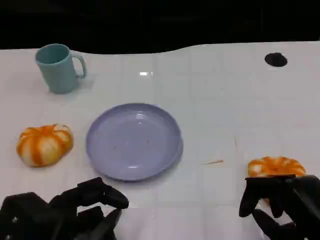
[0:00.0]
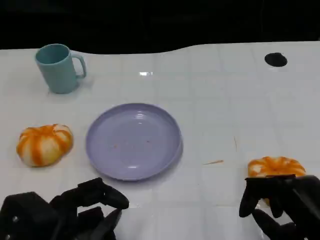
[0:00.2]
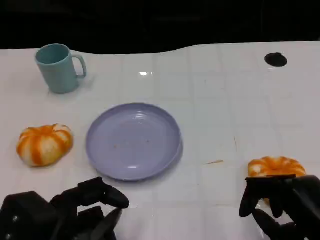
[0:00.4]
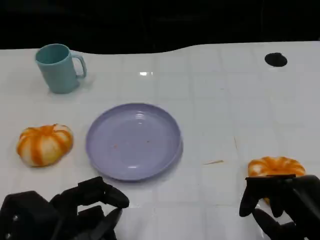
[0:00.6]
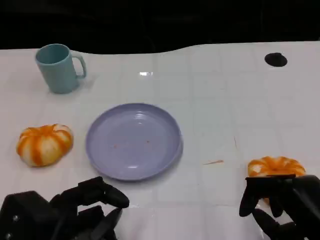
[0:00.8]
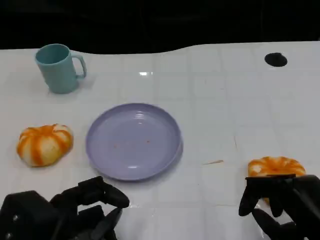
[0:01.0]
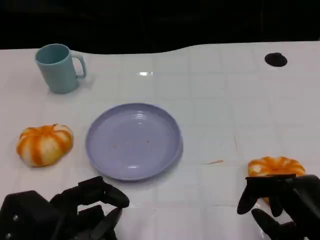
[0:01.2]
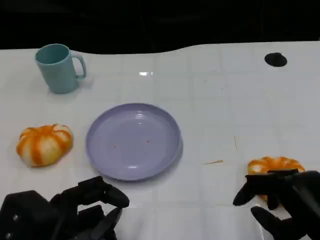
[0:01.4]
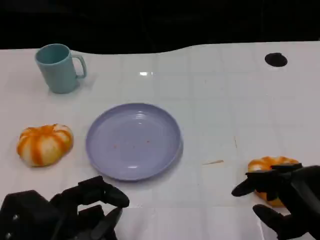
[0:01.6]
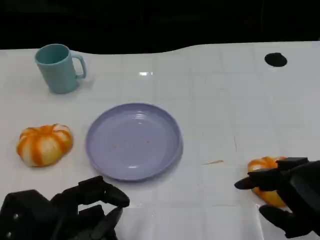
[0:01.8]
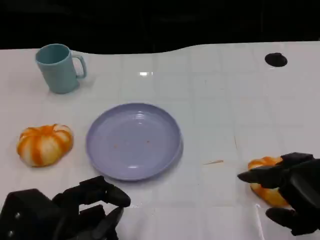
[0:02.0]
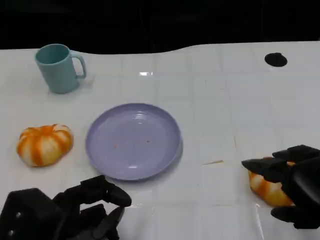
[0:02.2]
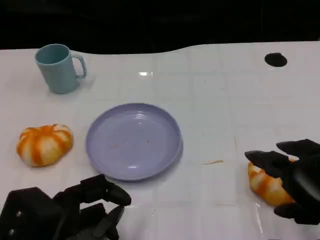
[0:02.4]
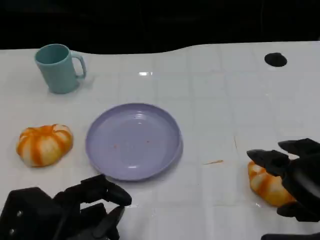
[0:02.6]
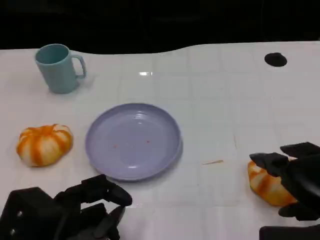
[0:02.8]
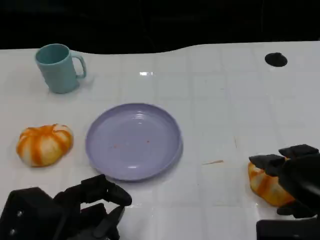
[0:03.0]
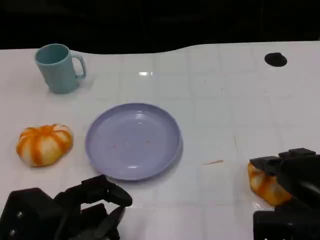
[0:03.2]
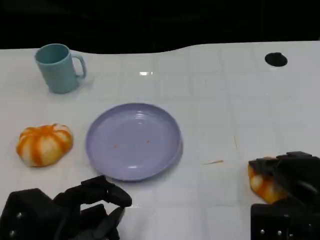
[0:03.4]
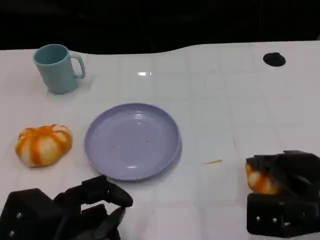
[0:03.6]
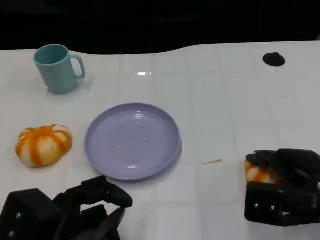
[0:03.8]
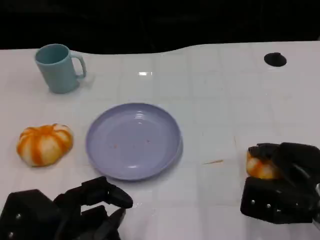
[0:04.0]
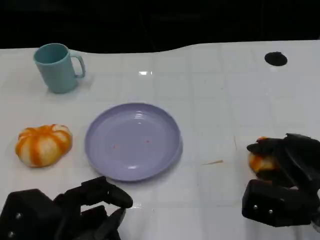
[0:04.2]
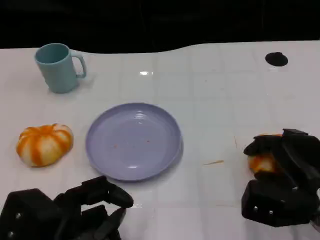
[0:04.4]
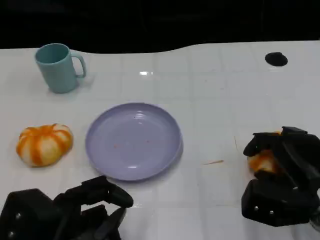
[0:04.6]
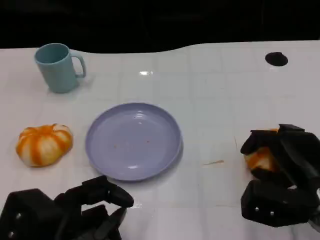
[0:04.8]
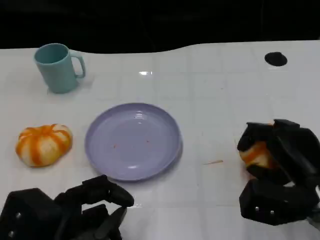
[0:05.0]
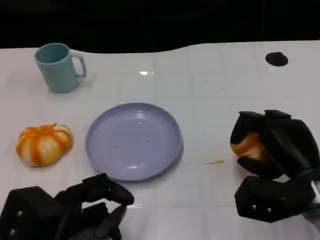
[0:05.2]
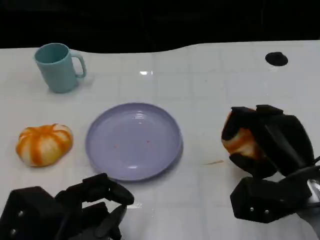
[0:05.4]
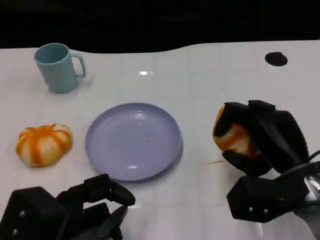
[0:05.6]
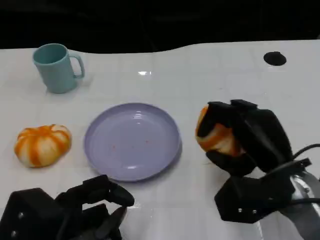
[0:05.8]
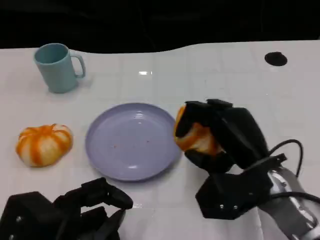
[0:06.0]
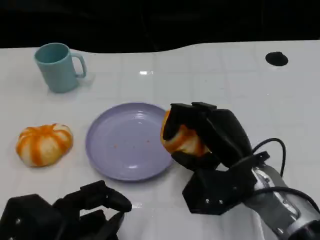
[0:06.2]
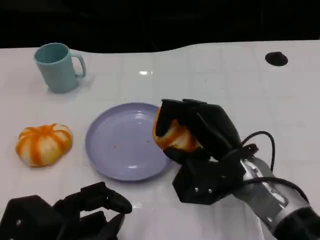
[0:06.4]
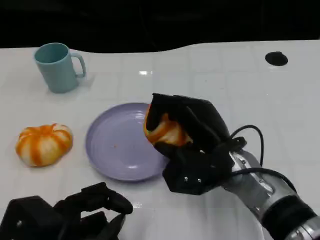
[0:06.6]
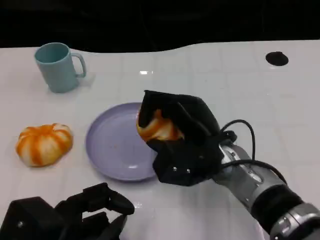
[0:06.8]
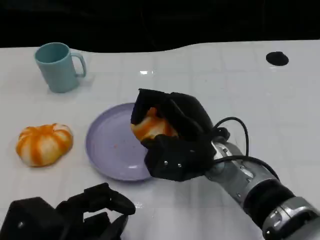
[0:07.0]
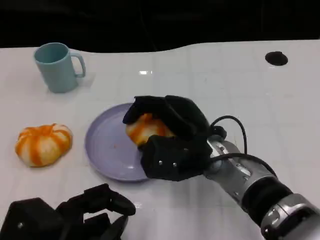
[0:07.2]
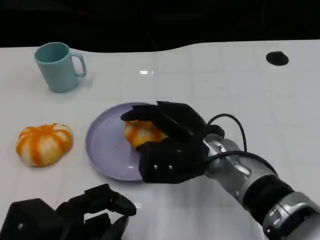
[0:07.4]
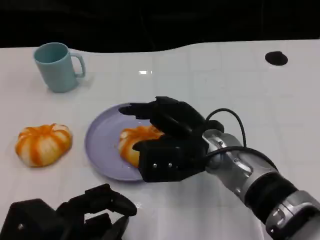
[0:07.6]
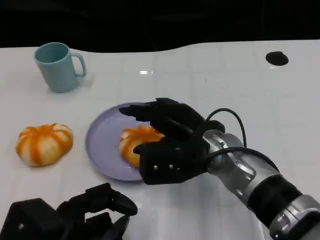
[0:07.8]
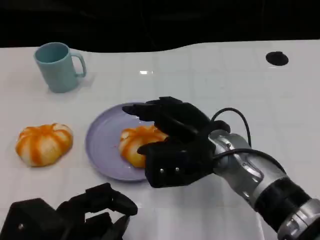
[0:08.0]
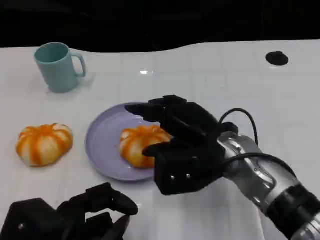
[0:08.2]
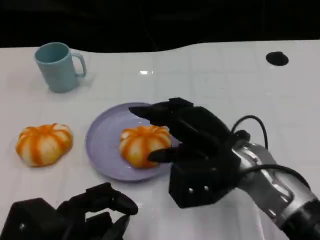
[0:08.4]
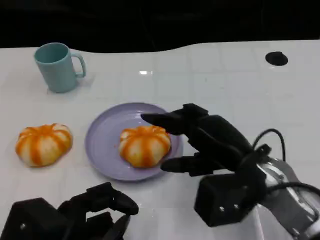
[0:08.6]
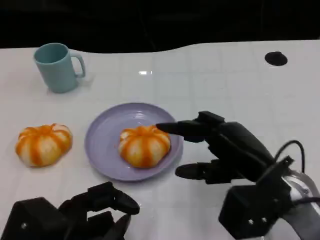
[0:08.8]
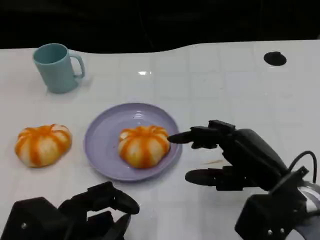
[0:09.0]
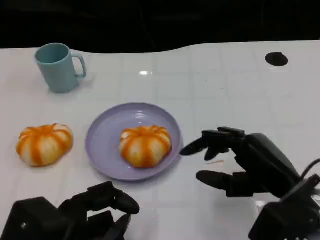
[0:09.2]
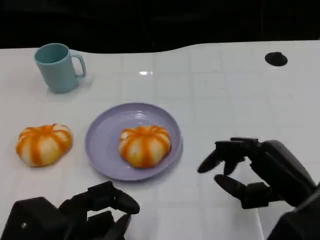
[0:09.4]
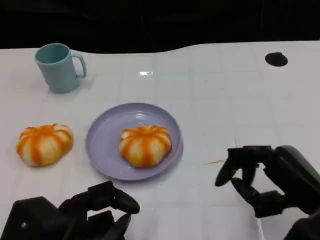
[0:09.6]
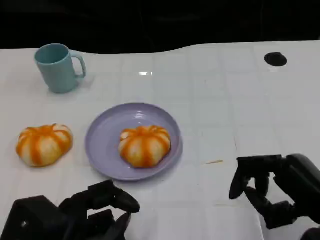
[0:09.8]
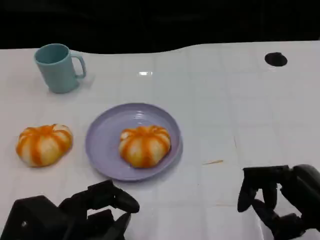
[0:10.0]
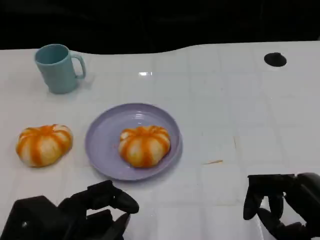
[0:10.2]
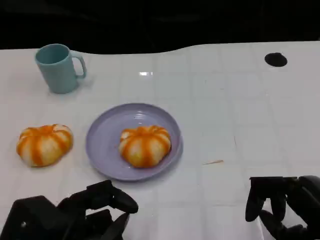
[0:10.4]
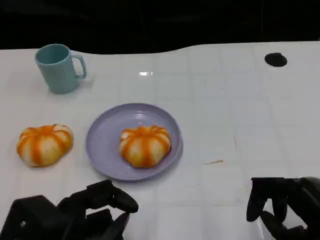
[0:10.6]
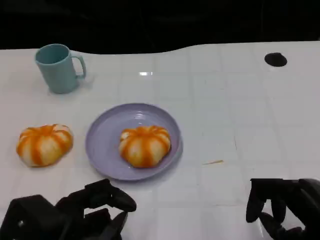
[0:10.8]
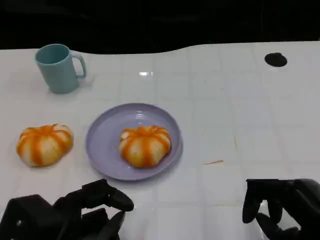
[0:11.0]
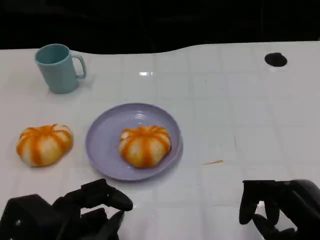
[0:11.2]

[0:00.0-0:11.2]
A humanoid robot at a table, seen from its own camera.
Task of the whole recording: Grasp the bread from the table and place it into the plate.
0.0 to 1.6 s: The hands move only a little.
3.2 to 4.8 s: The right hand moves roughly 5 cm.
4.8 to 6.4 s: The right hand is displaced to the left by roughly 10 cm.
8.0 to 9.6 s: The right hand shifts approximately 20 cm to the right and backward.
9.6 to 11.2 s: There are only small adjustments of the hands.

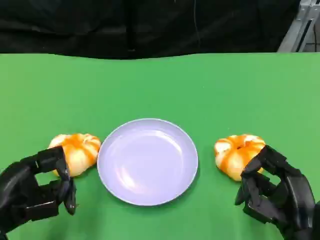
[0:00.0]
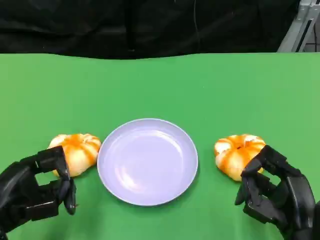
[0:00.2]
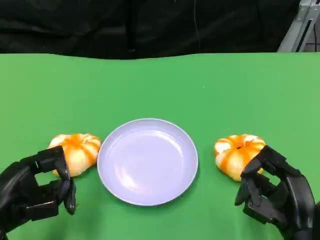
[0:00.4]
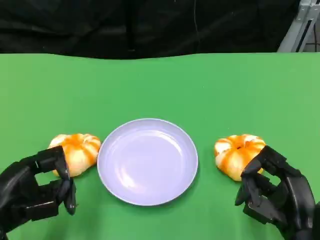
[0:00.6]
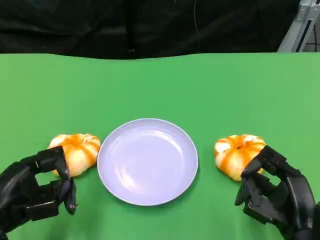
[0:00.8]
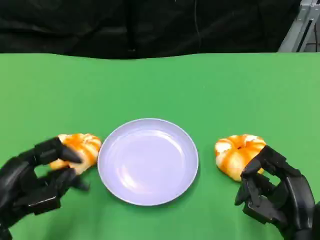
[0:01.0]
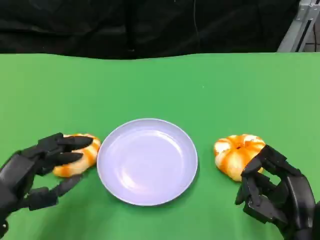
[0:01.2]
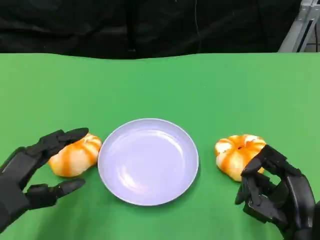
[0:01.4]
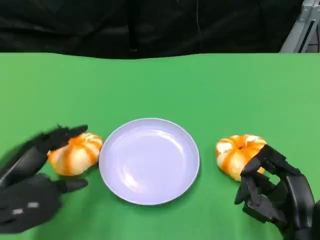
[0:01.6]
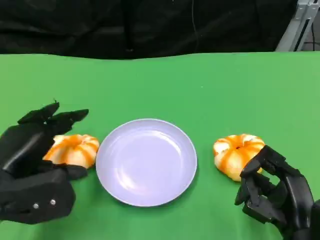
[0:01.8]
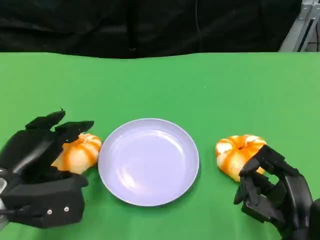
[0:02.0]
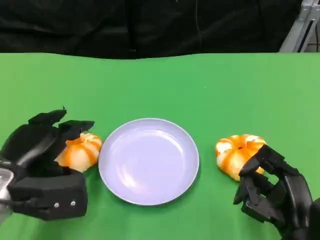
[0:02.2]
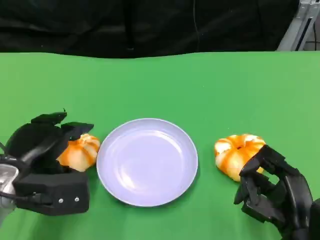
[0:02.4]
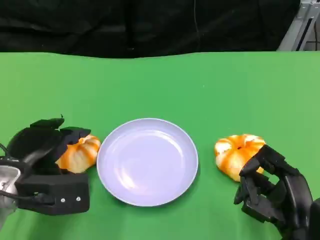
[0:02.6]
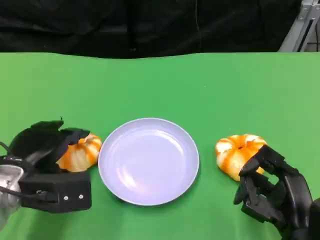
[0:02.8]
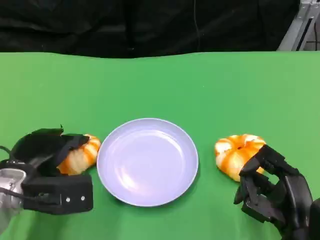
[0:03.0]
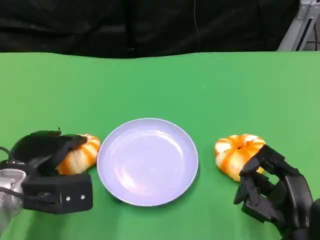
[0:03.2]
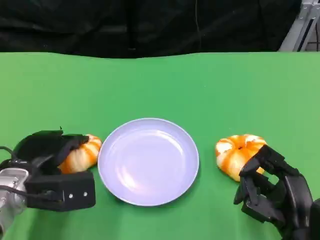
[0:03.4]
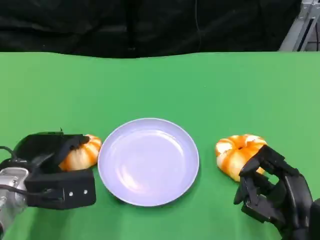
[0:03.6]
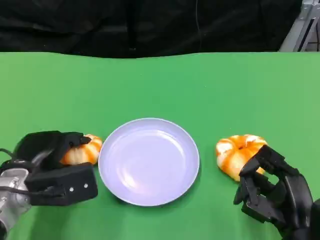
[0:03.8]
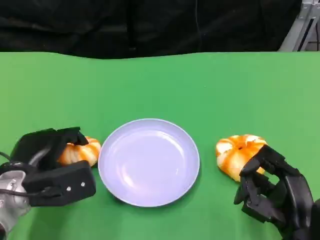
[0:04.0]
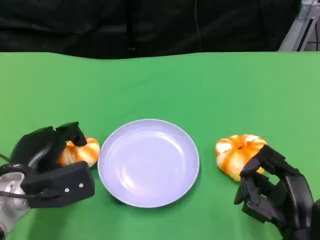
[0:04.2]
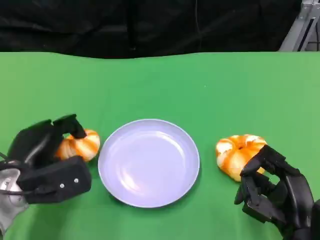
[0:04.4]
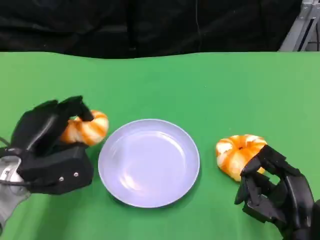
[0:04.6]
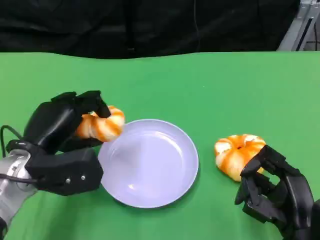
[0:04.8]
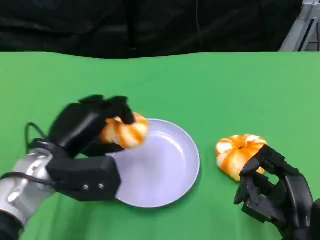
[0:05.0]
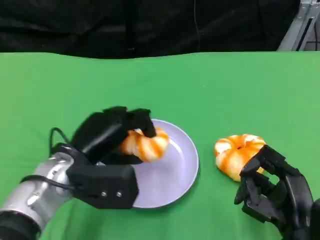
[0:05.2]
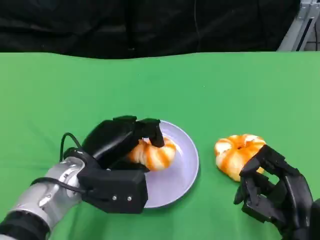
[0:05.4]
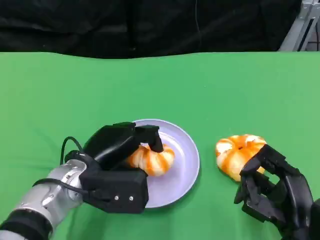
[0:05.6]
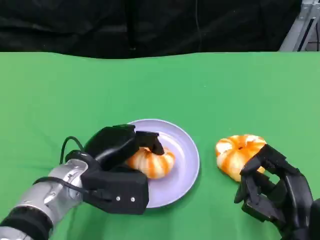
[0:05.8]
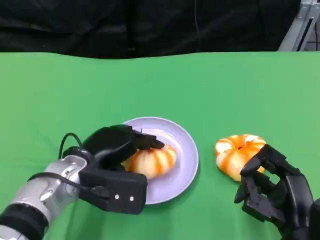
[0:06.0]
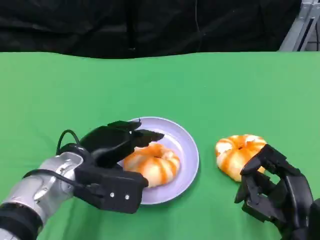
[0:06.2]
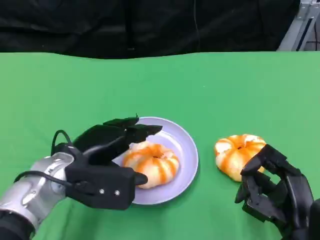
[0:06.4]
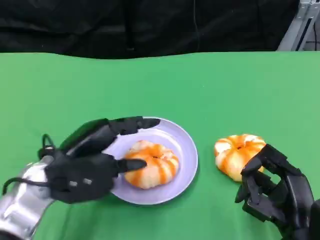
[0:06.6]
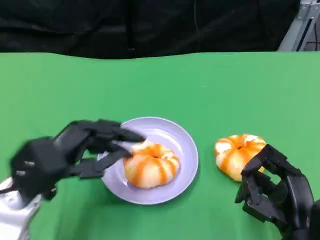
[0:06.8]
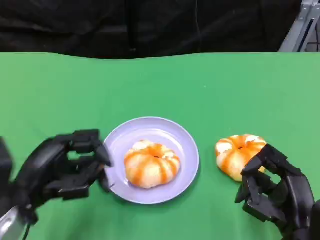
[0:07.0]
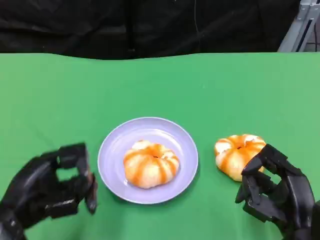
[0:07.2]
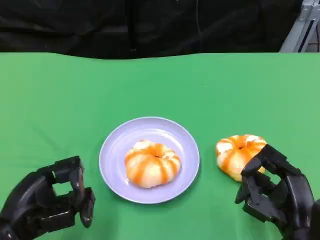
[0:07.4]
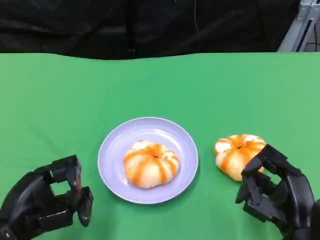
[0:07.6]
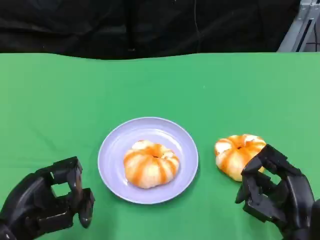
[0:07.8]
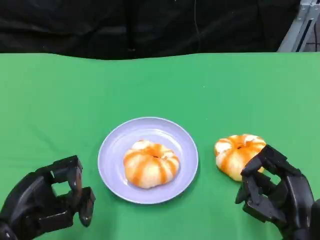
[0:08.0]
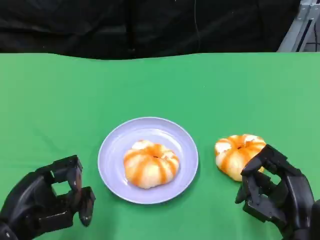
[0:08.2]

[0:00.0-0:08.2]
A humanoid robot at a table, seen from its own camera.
Task of the whole recording: Grasp the bread from the table and place it into the plate.
1.6 to 3.2 s: The left hand goes about 5 cm forward.
3.2 to 5.0 s: The left hand heads to the right, covering roughly 5 cm.
6.6 to 8.2 s: The left hand is displaced backward and to the left by some 10 cm.

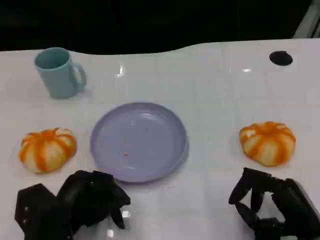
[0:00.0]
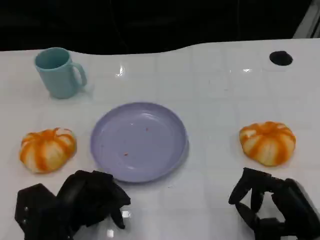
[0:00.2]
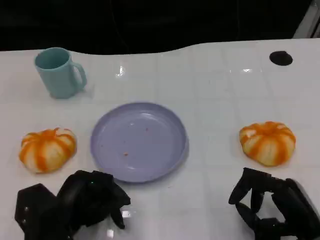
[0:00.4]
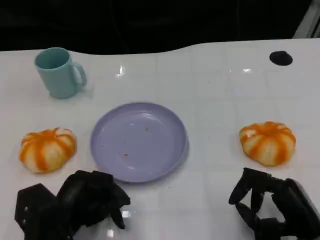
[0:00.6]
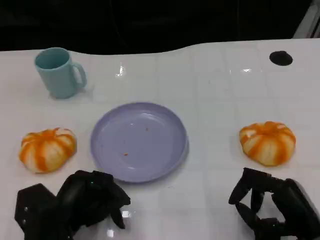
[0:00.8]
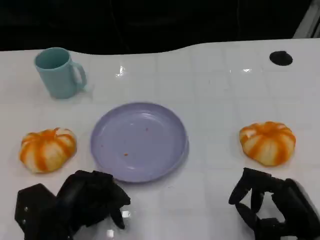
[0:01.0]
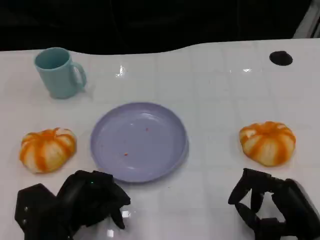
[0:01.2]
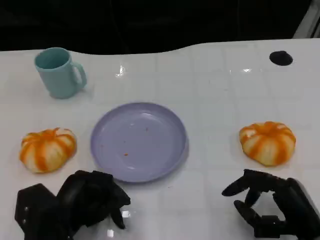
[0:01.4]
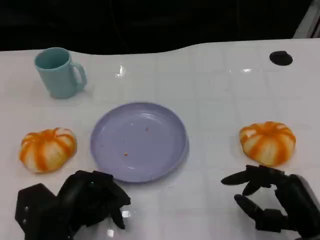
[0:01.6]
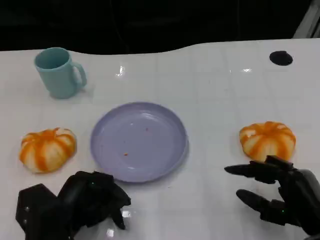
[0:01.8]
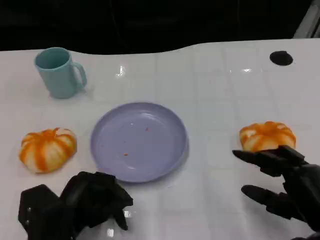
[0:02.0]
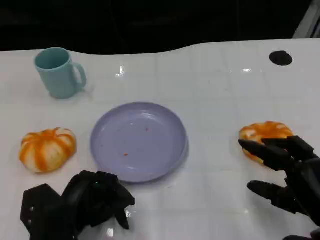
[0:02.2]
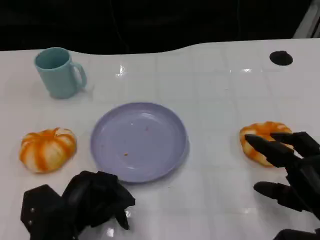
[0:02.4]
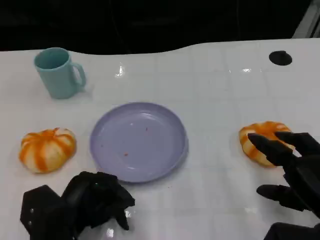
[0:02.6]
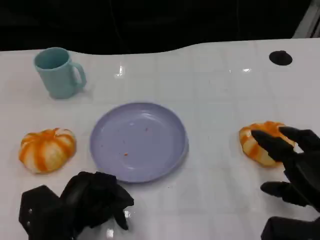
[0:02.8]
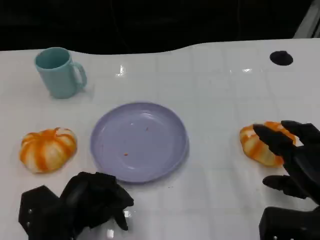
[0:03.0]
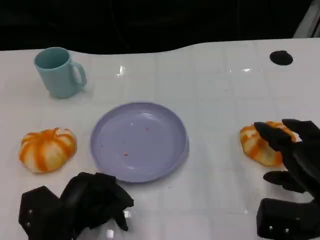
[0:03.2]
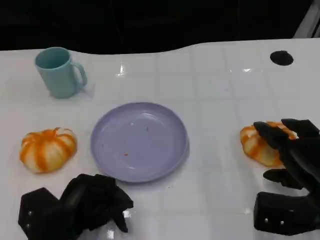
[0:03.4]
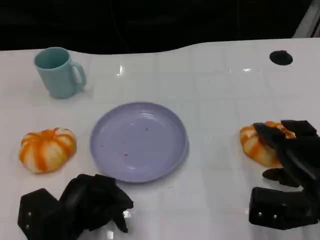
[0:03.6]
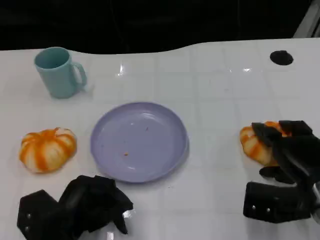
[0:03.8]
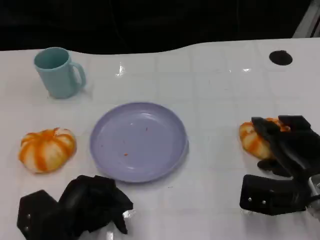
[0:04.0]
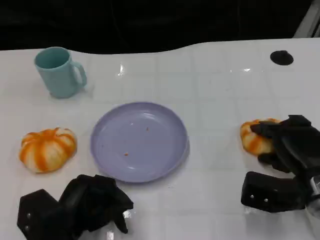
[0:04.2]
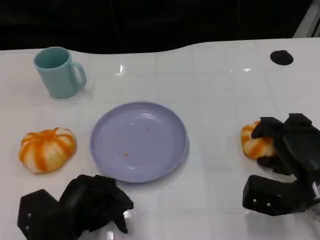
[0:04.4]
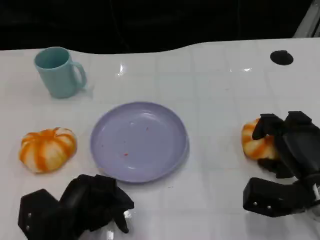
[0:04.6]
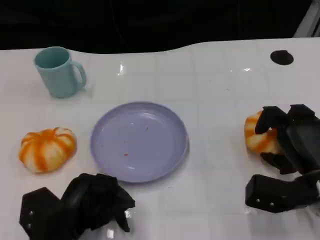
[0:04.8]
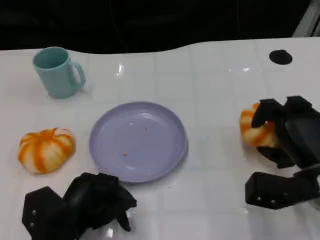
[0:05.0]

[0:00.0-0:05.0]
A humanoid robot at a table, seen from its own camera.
Task of the whole recording: Grasp the bread from the table and place it into the plate.
0.0 to 1.6 s: The hands make only small movements.
1.6 to 3.4 s: The right hand travels forward by roughly 5 cm.
